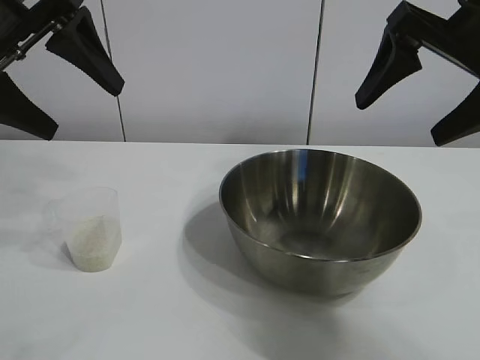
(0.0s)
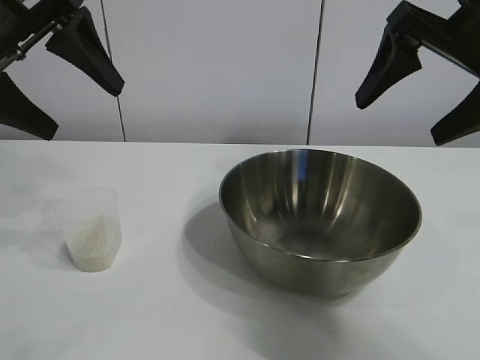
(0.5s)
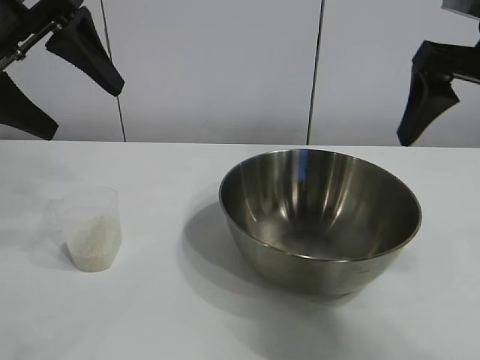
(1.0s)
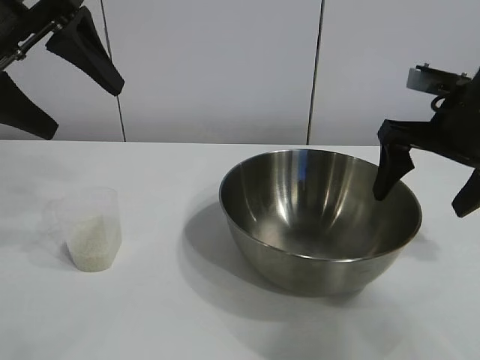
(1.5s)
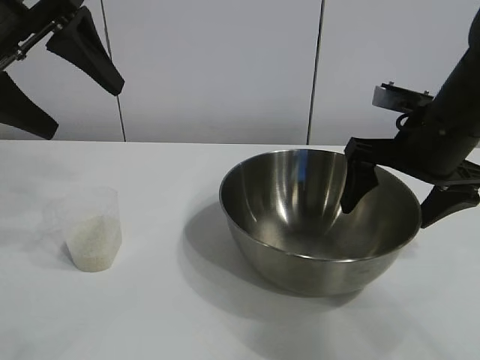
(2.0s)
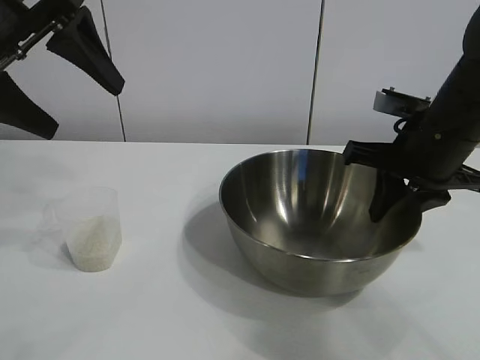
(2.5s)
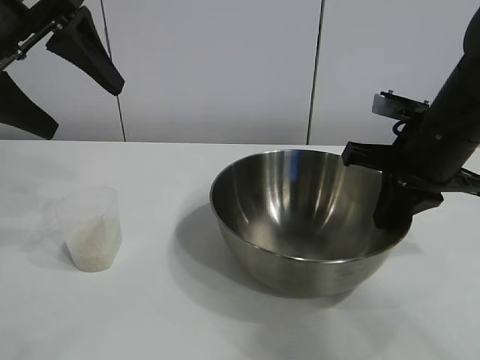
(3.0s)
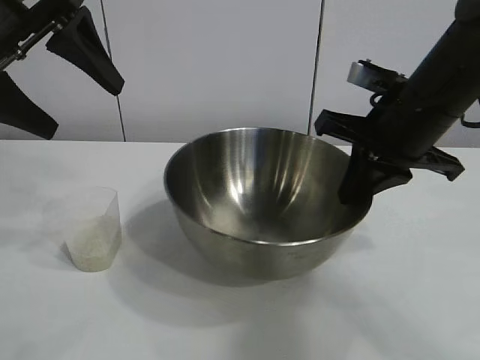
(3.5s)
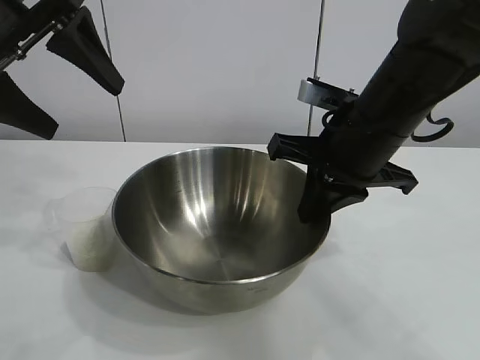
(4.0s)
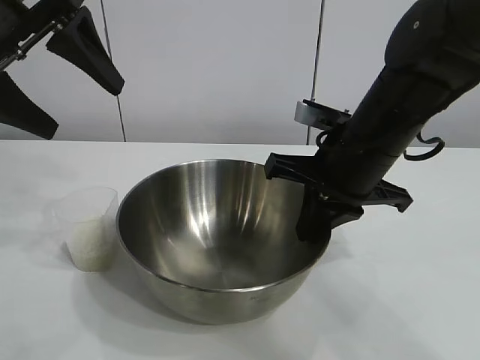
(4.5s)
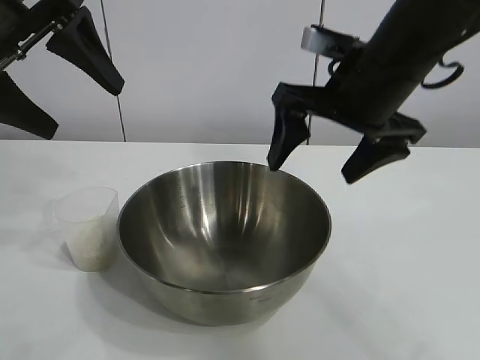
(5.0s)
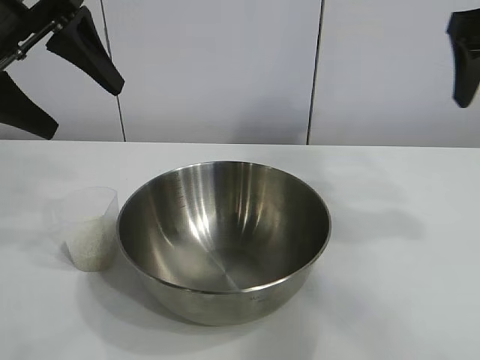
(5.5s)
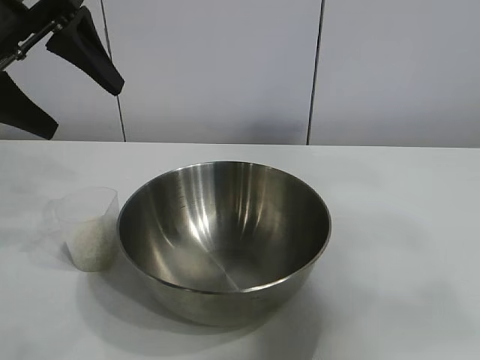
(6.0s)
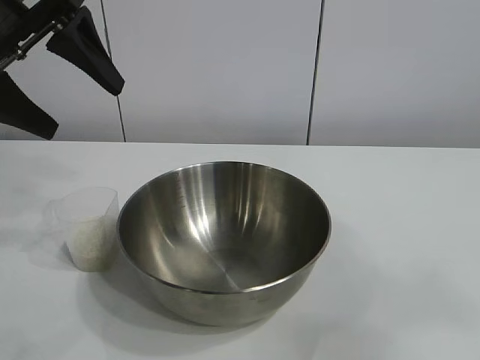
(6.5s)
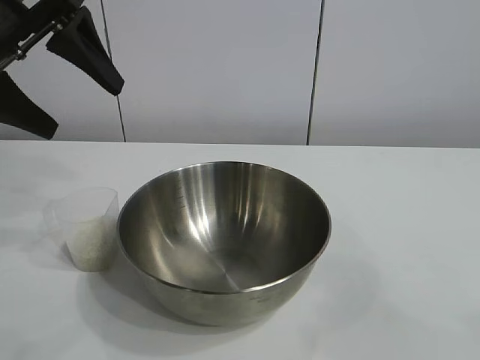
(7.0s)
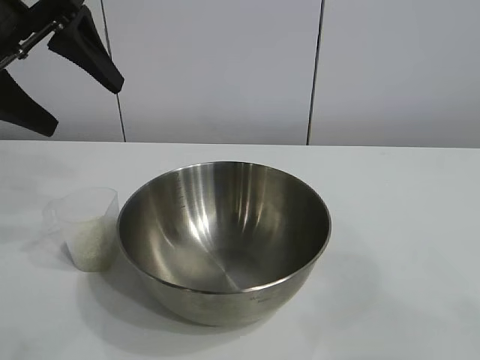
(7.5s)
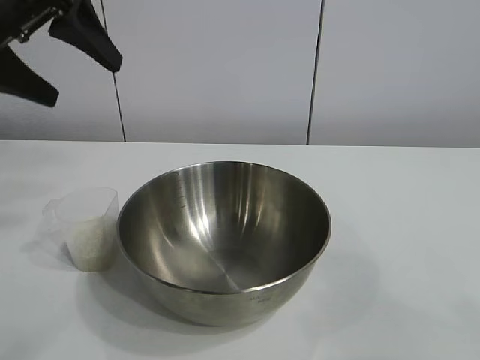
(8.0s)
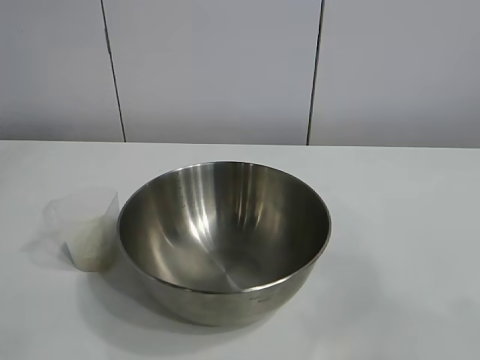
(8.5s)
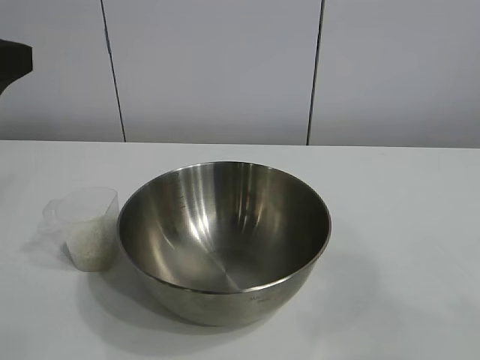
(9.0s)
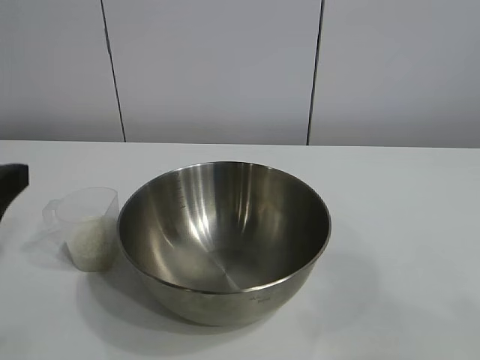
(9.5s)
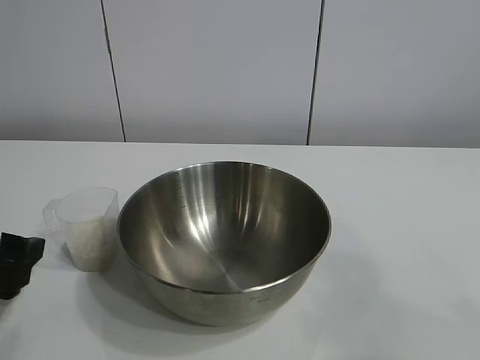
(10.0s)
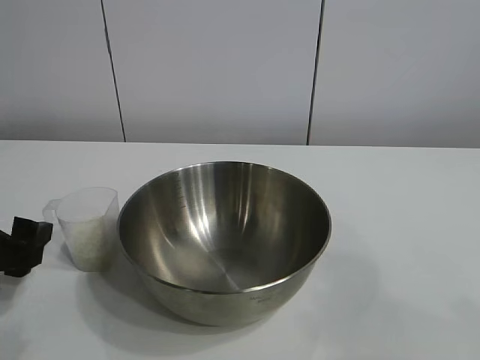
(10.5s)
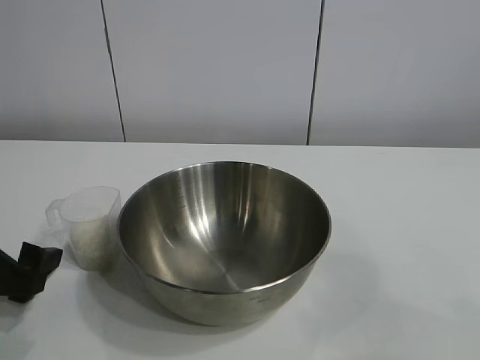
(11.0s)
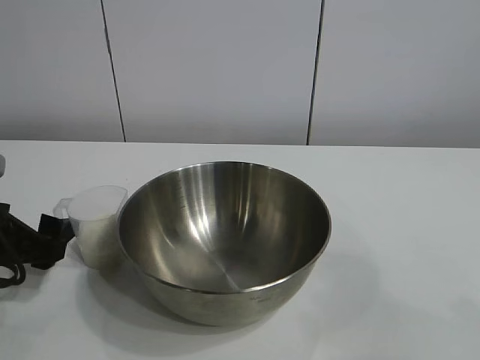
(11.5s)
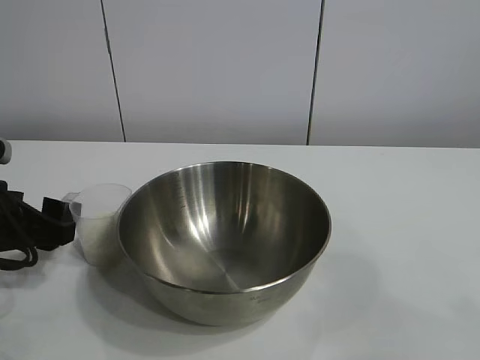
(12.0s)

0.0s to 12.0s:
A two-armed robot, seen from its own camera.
Task of the whole recording: the right gripper grasp the rice container and place it in the center of the table, the left gripper grasp the rice scoop and pour the rice into the rice container.
Step, 1.0s to 4.5s: Move the bowl in the center of view with right gripper.

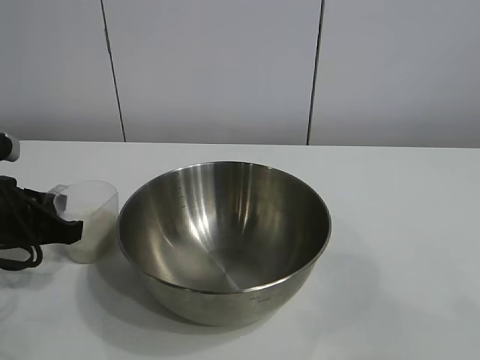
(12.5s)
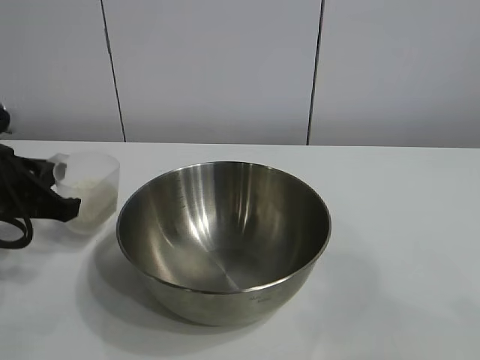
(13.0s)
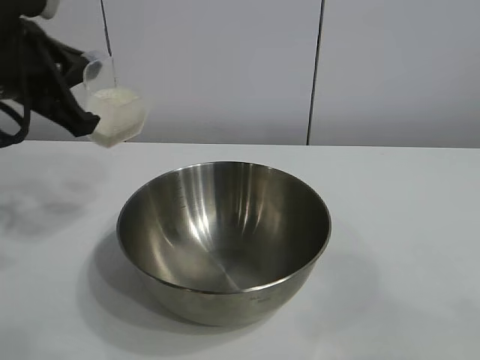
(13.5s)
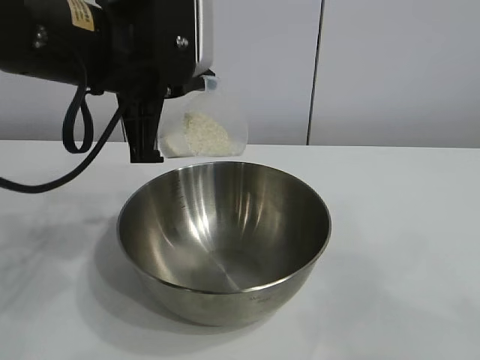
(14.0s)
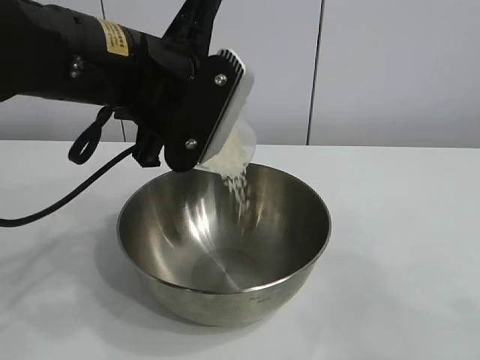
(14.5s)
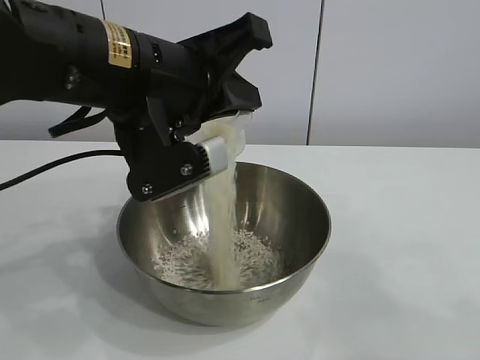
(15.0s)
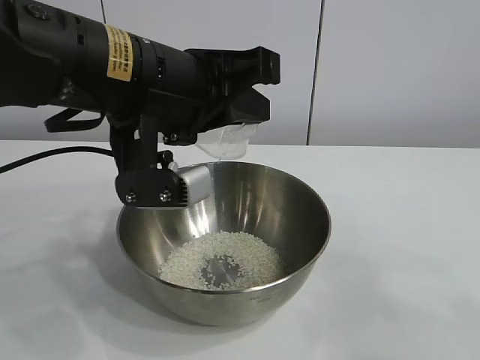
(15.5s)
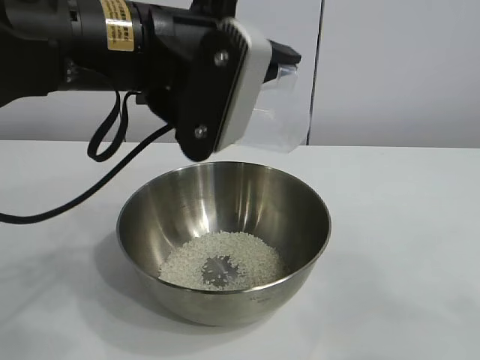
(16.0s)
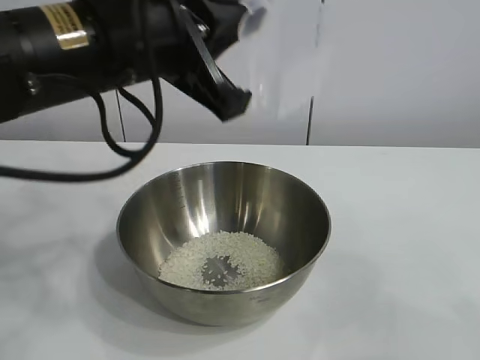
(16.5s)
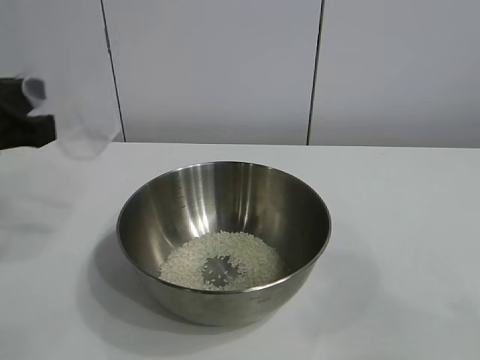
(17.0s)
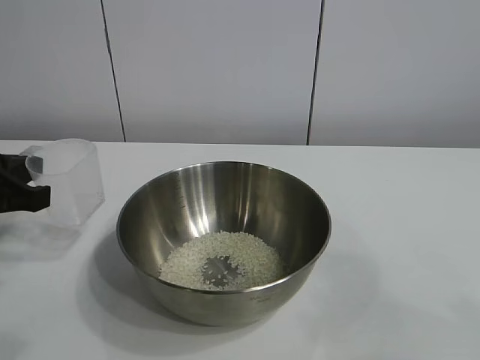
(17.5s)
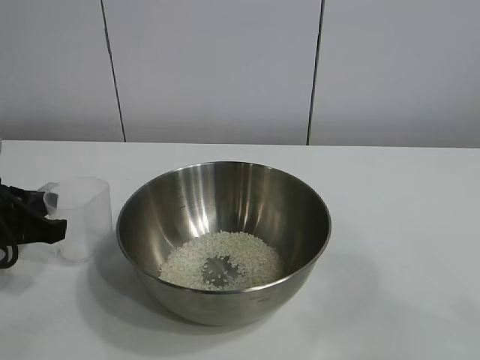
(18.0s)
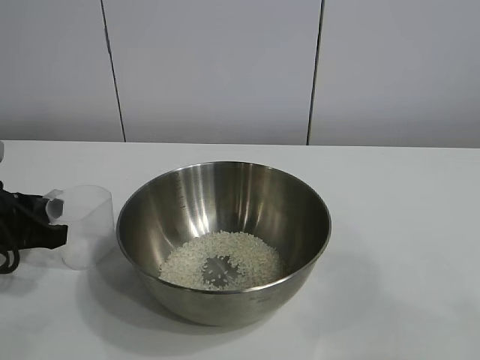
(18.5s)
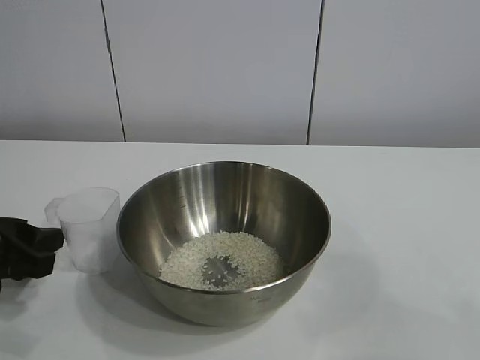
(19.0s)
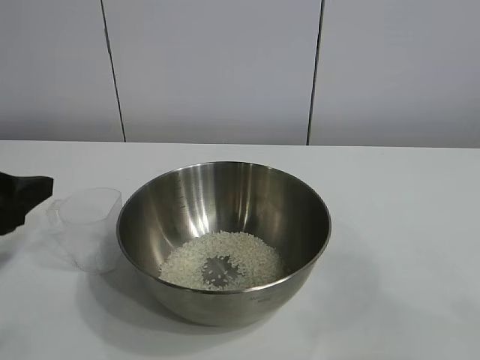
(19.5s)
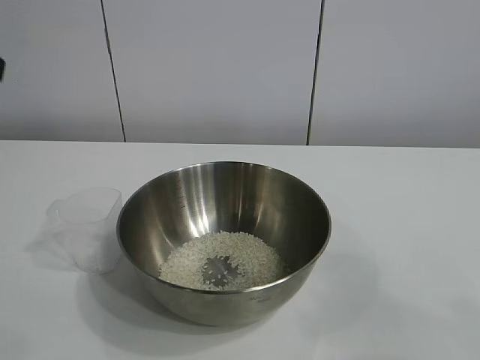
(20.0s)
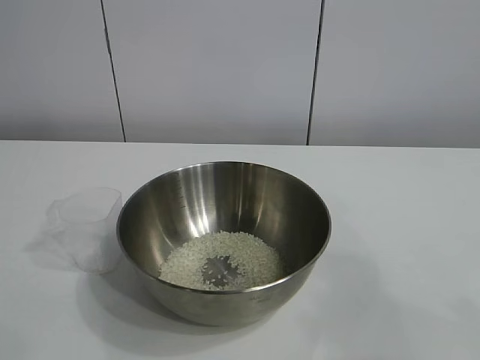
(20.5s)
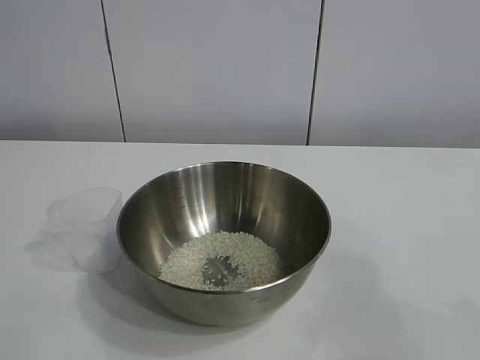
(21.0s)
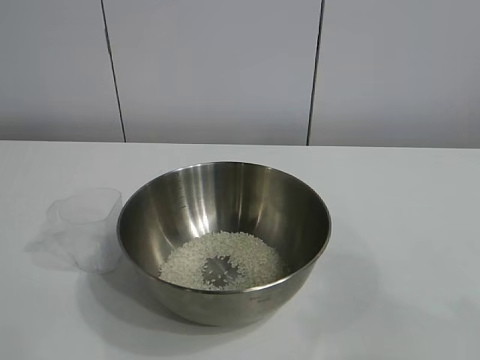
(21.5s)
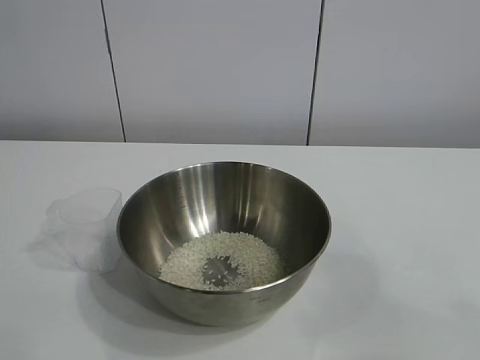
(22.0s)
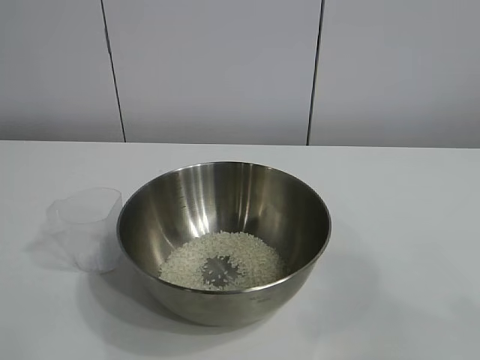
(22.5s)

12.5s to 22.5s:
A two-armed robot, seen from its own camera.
Task of the whole recording: the right gripper grasp the rice container and place it in the center of the table, the left gripper grasp the rice scoop and pour the rice into the rice container.
Step, 13.0s to 15.5s: Pour the rice from the cup into the bowl with the left gripper.
Step, 16.0s to 18.5s: Place the cup on the table with the left gripper.

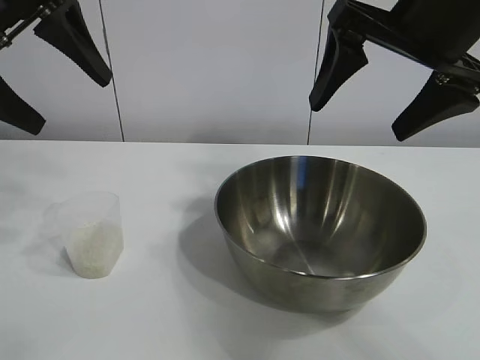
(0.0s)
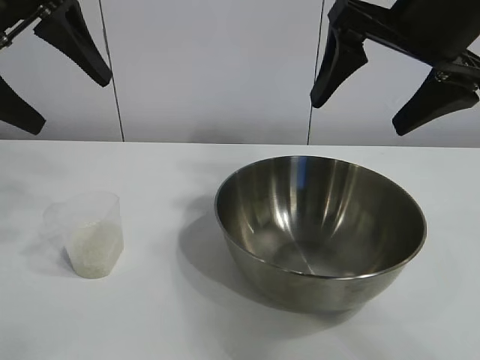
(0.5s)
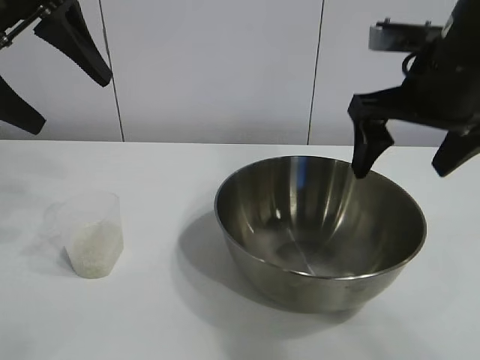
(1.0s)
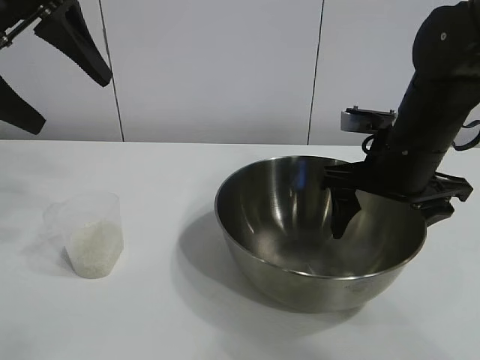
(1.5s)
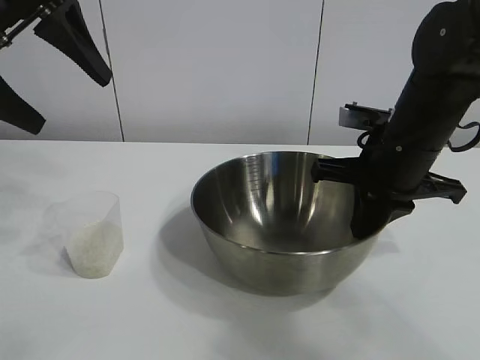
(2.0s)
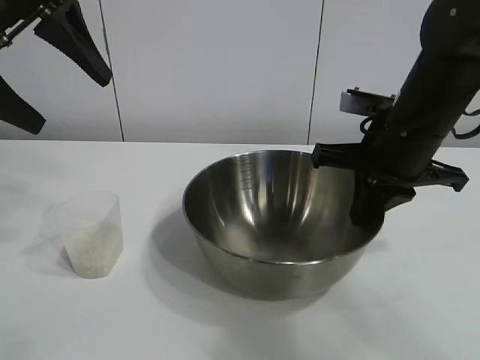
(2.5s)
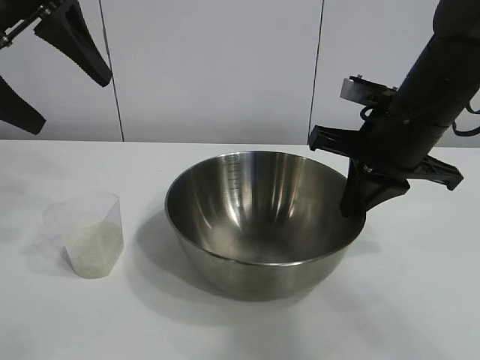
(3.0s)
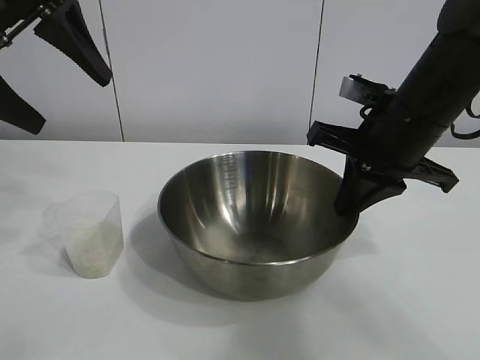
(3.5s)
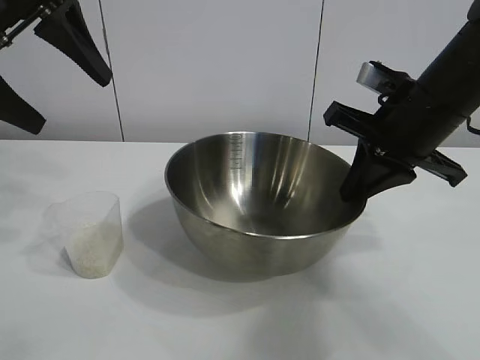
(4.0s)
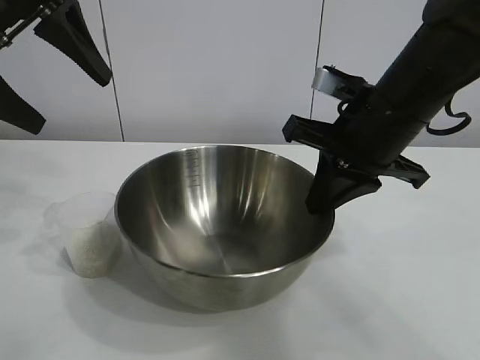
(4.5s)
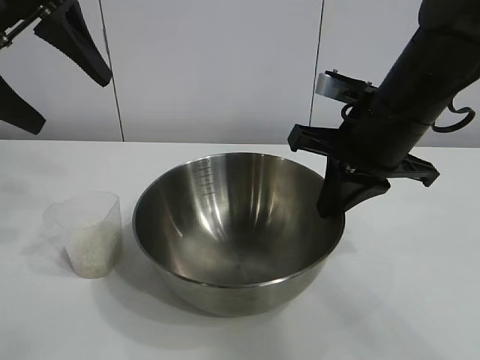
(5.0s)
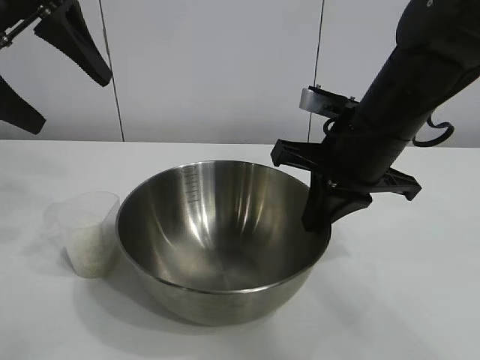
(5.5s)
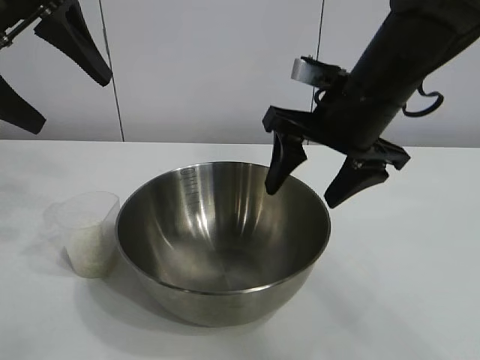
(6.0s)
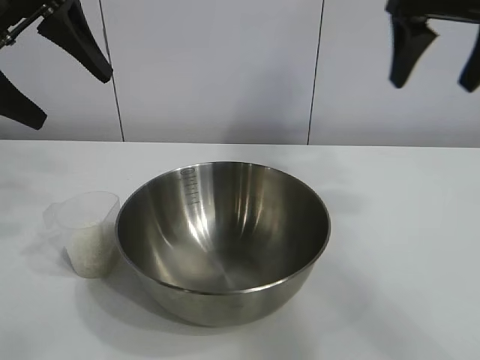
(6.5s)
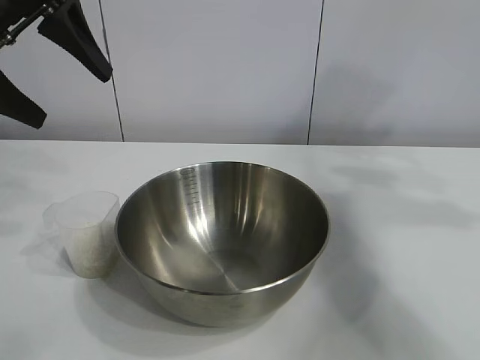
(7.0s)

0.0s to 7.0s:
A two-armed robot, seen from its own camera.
Task of the whole recording: the right gripper grasp the rice container and place it in the center of the table, the left gripper grasp the rice scoop and pour the rice into the rice container.
Step, 1.0s to 5.5s: Move the bowl in the center of view with right gripper.
